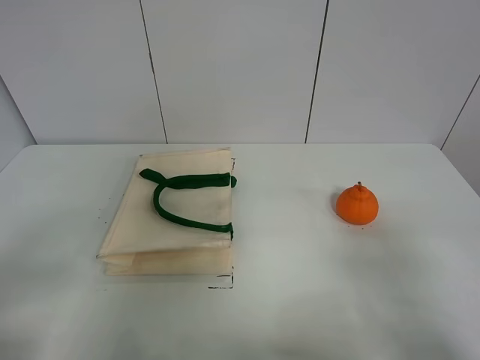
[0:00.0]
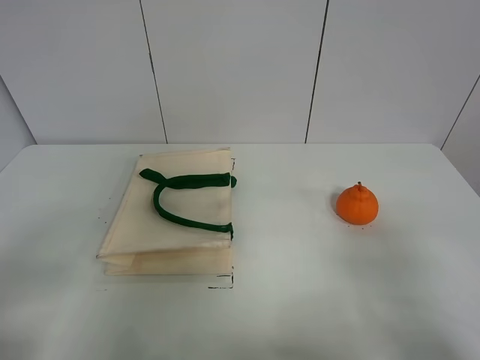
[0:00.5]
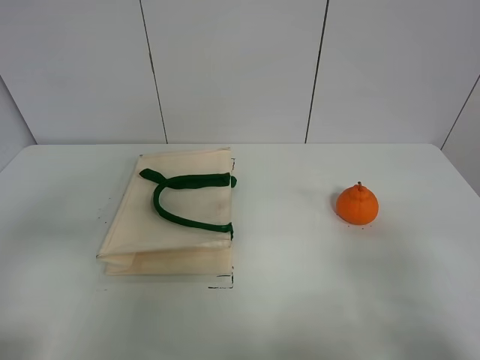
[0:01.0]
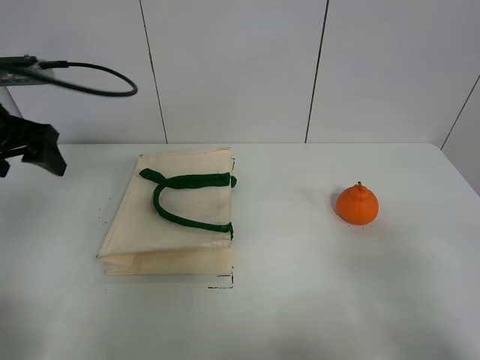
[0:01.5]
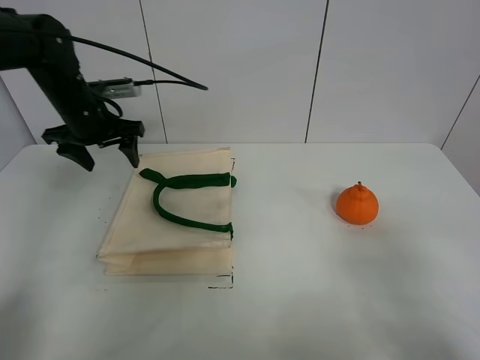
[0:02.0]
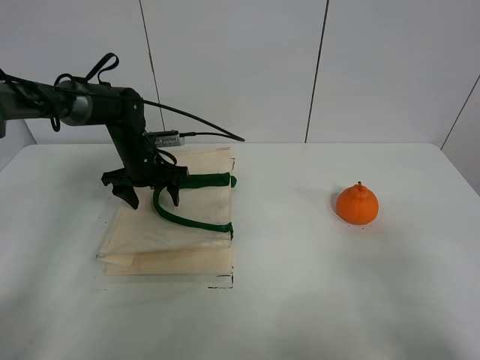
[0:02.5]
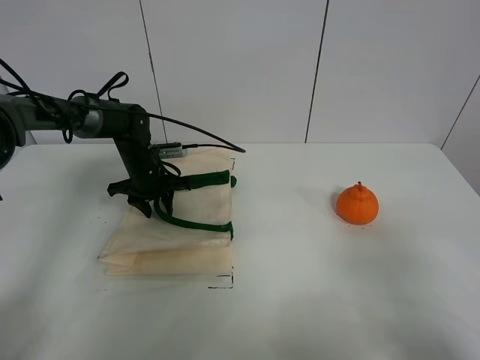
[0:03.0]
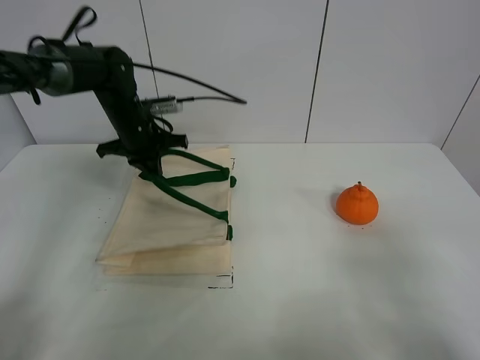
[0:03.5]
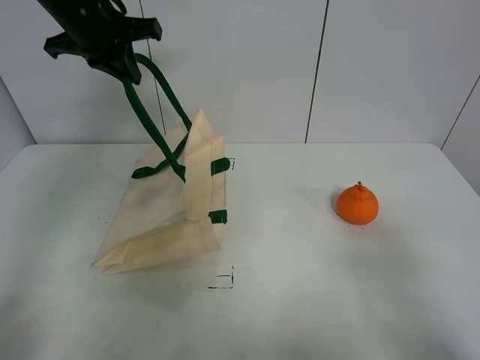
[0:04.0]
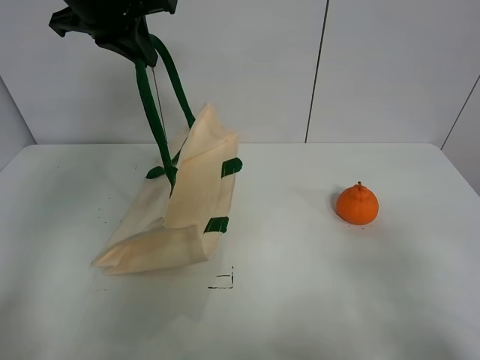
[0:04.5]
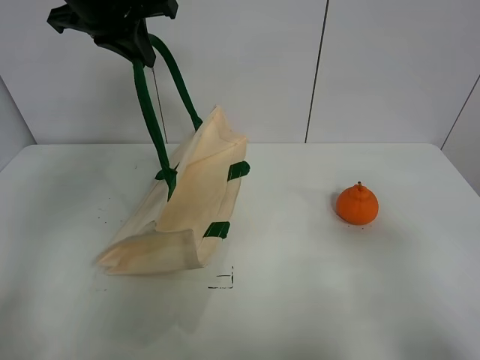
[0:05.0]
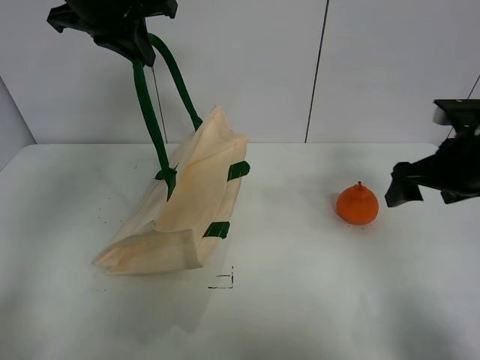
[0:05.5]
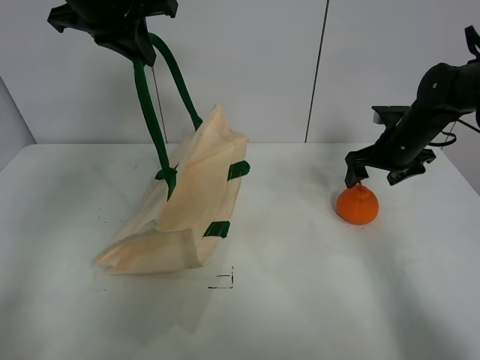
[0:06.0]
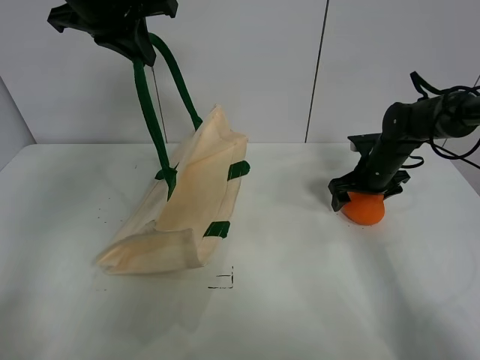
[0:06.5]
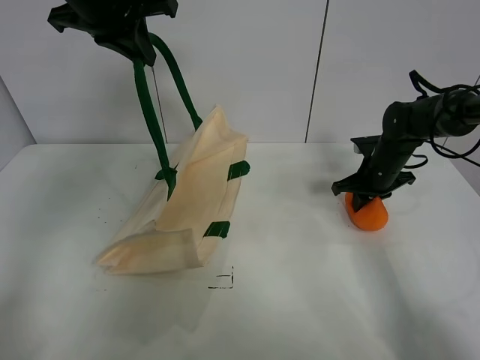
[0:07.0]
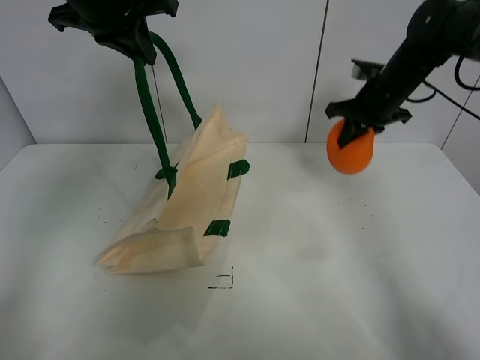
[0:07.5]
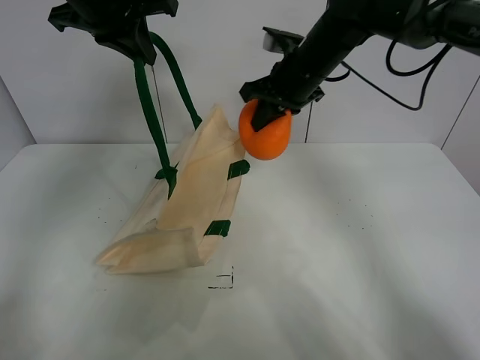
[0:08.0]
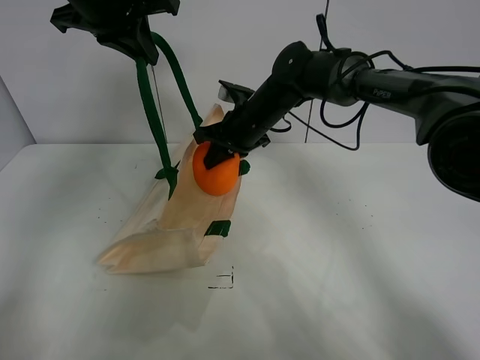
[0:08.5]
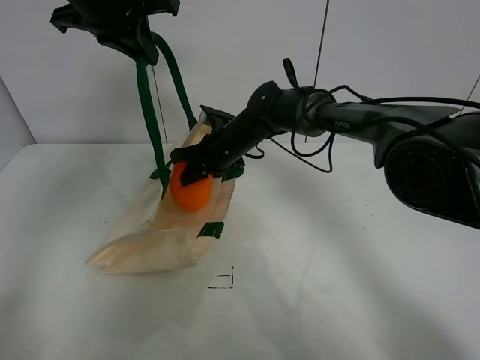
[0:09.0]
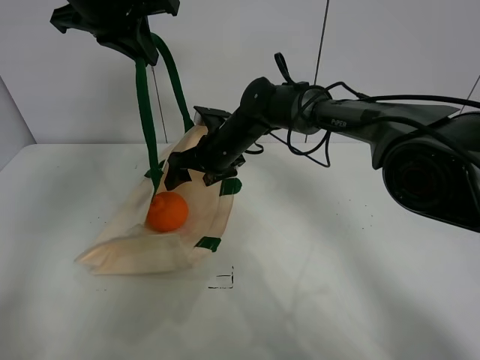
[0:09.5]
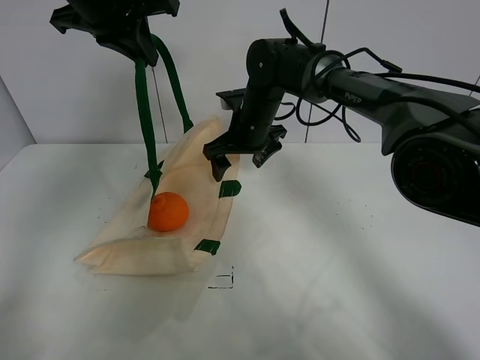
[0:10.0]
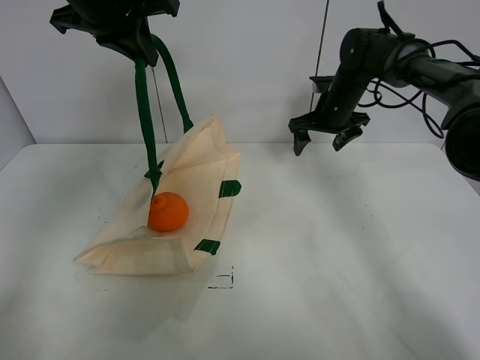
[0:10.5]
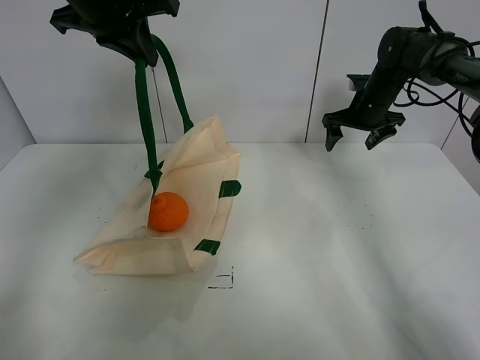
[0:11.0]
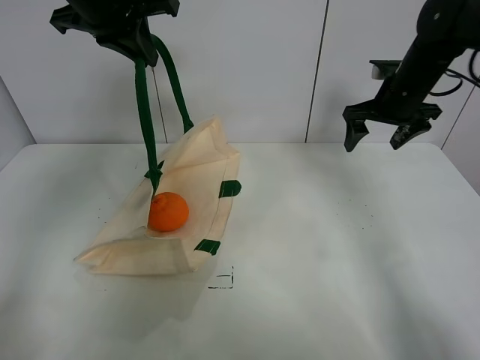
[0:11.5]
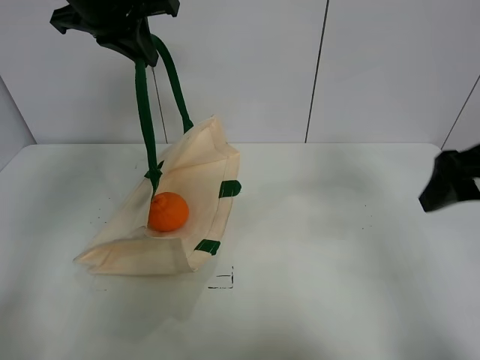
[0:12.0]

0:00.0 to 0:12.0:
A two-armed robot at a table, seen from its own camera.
Task of the whole recording: open the white linen bag and put the orange in the bag.
Step, 0:00.0 to 0:04.5: Lift the handbag with left gripper.
Step, 0:05.0 to 0:07.0: Grasp the orange with right gripper.
Step, 0:07.5 to 0:10.0: Place the orange in the handbag with right gripper.
0:00.0 to 0:02.0: The left gripper moves forward, roughly 40 cm.
0:02.0 to 0:04.0: The left gripper travels upward by some 15 cm, and closes its fingers.
0:04.0 to 0:06.0: The left gripper changes place by approximately 5 cm. Meanwhile the right gripper moves forward, some 40 cm.
0:06.0 to 0:08.0: The right gripper travels to the left and upward by roughly 20 cm, and closes its fingers.
0:08.0 to 0:10.0: The right gripper goes approximately 10 cm downward and to the left, and opens.
0:10.0 to 0:12.0: The right gripper travels backward, to the right and upward by approximately 35 cm.

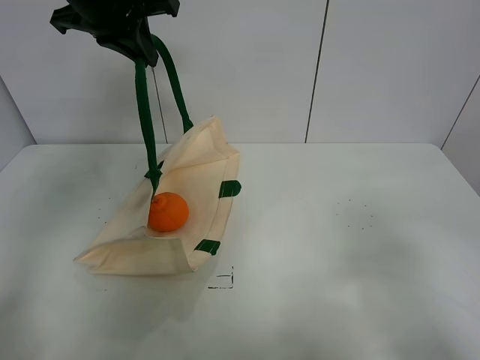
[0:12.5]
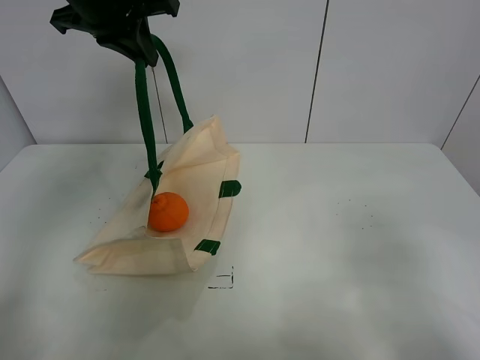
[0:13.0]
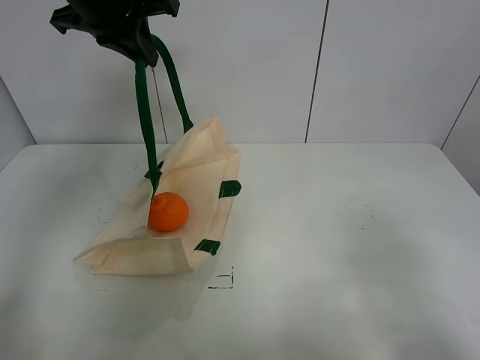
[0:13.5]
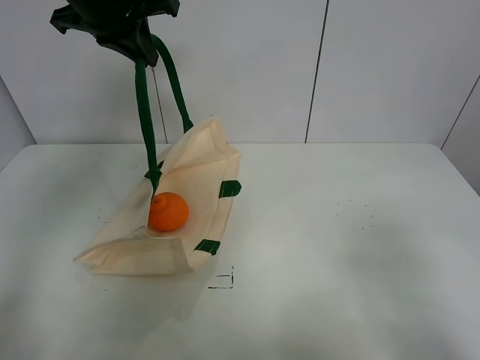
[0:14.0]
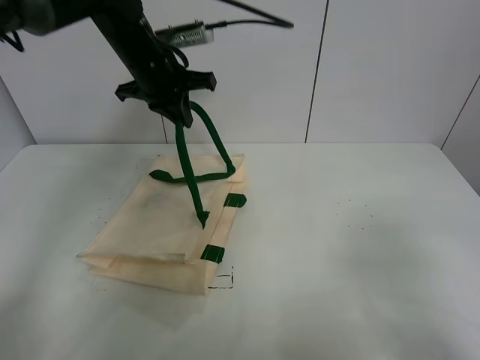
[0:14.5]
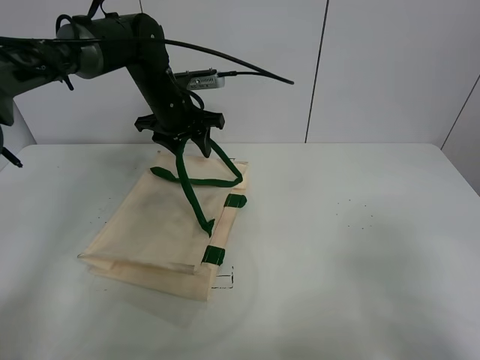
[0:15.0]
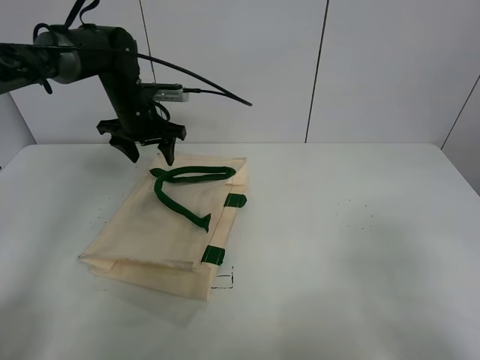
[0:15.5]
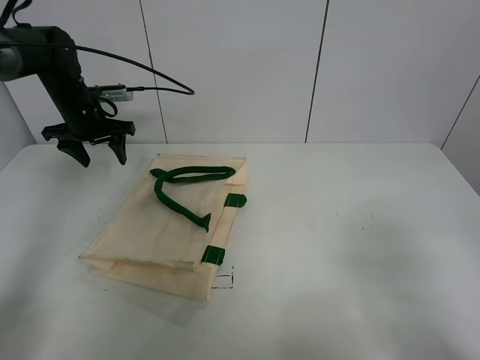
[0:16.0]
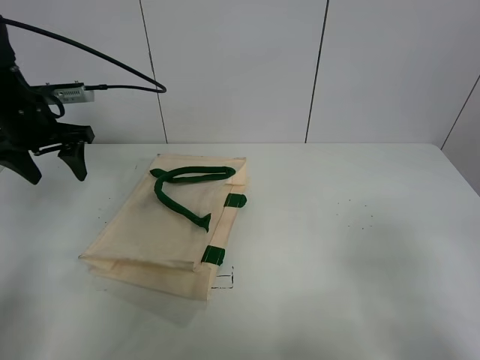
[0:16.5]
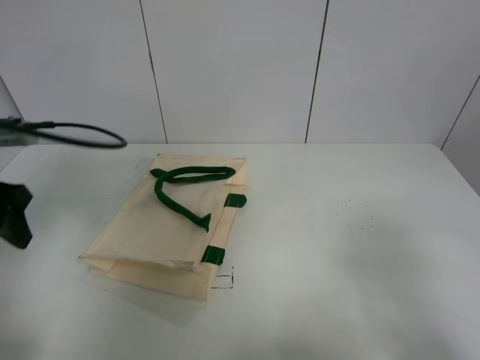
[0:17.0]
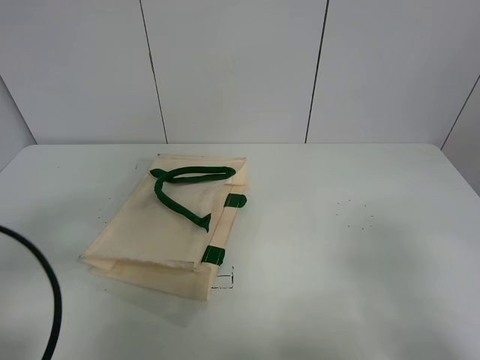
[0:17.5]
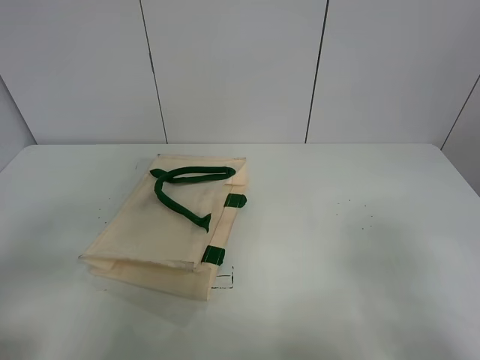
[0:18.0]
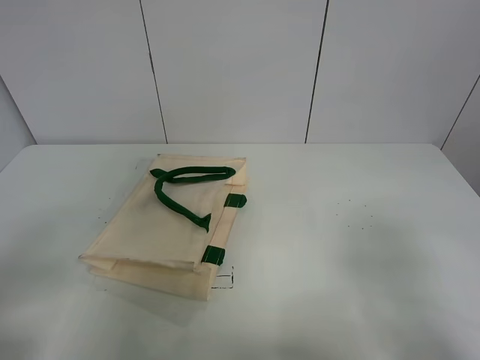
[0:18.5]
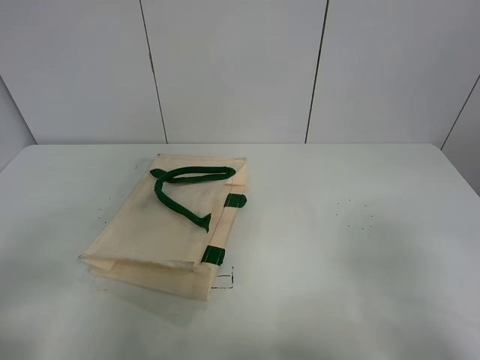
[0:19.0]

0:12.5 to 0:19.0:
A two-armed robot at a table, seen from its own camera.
Task of the whole recording: open the white linen bag and put the orange in the bag.
Step, 0:12.5 to 0:16.0: Put down the handbag with left gripper.
0:12.5 to 0:14.5: The left gripper travels downward and forward by approximately 15 cm.
0:14.5 to 0:17.0: The left gripper is displaced backward and to the left by approximately 30 cm, and opens up.
0:17.0 to 0:19.0: The left gripper heads backward, covering some 20 cm.
